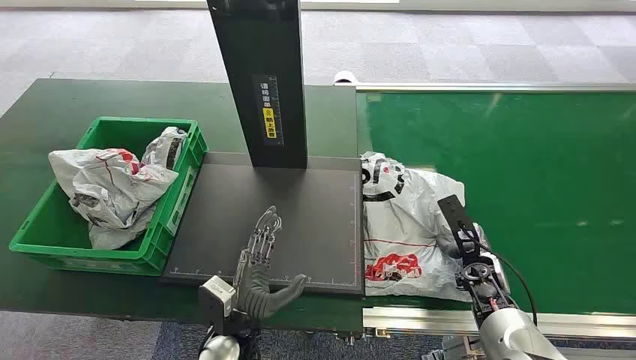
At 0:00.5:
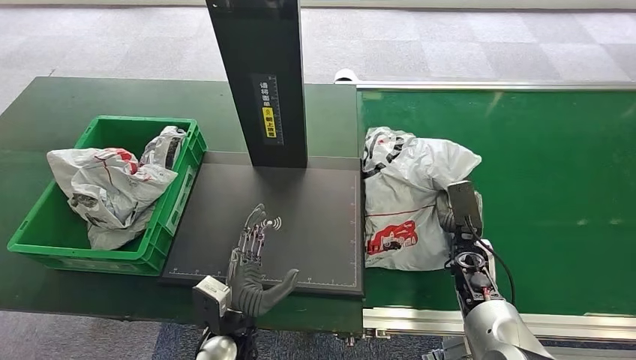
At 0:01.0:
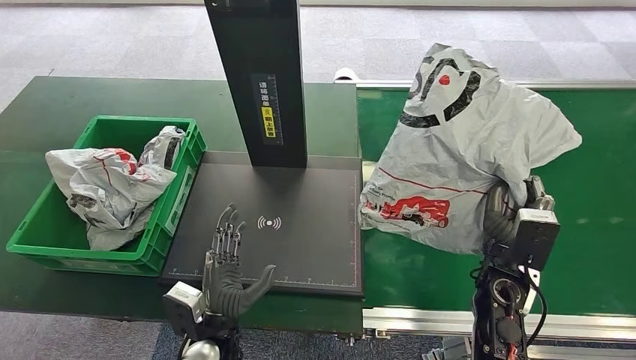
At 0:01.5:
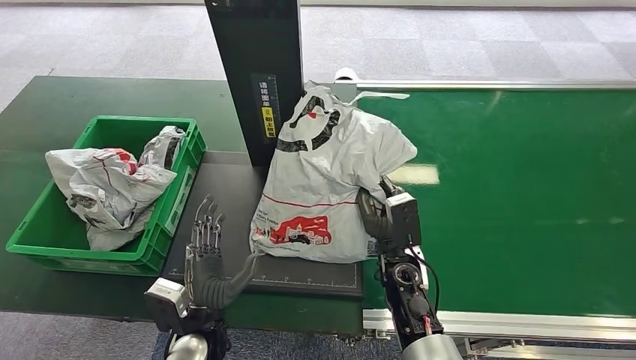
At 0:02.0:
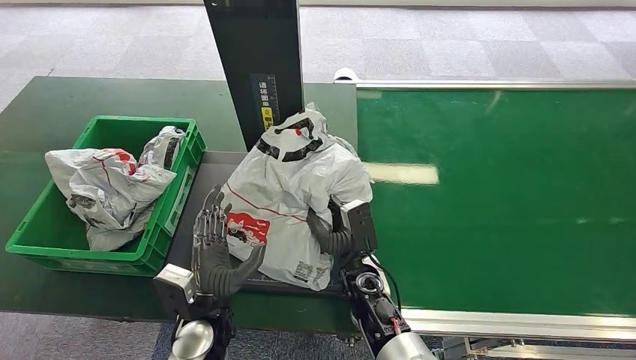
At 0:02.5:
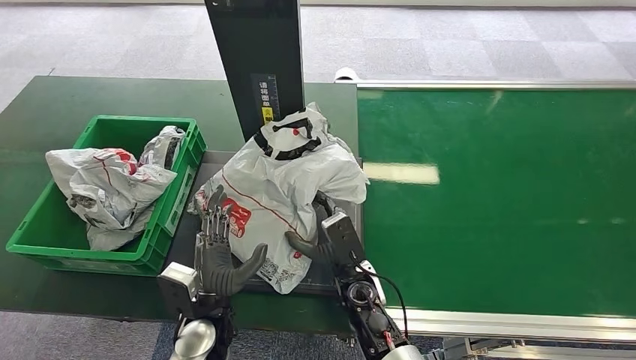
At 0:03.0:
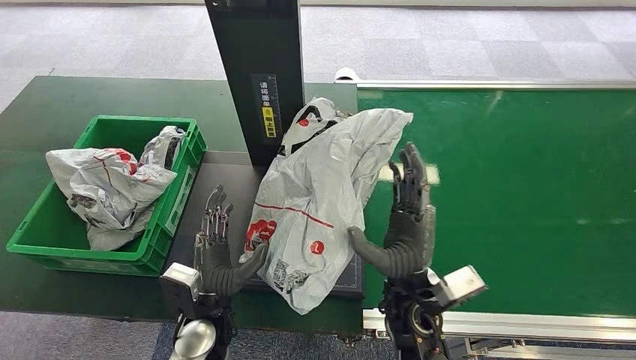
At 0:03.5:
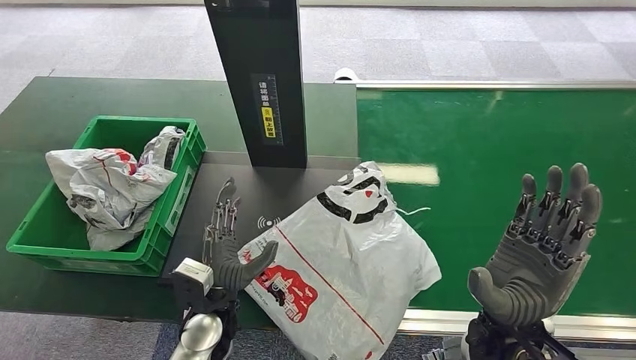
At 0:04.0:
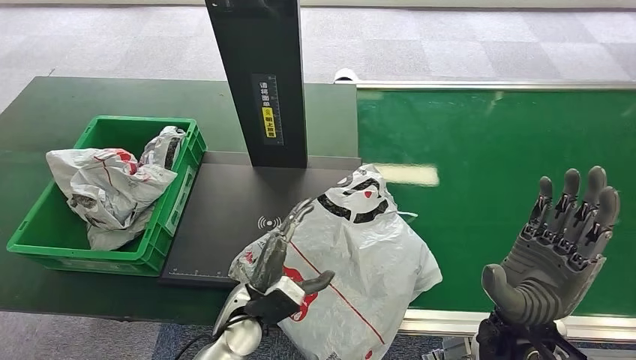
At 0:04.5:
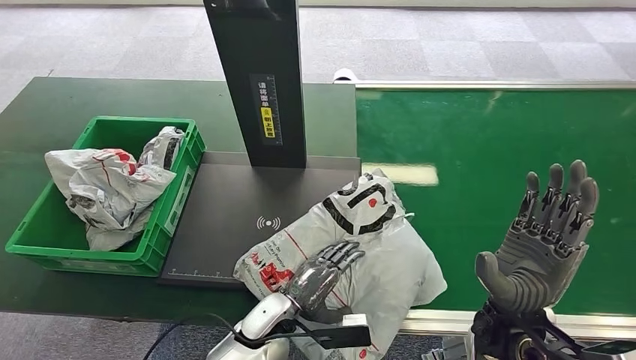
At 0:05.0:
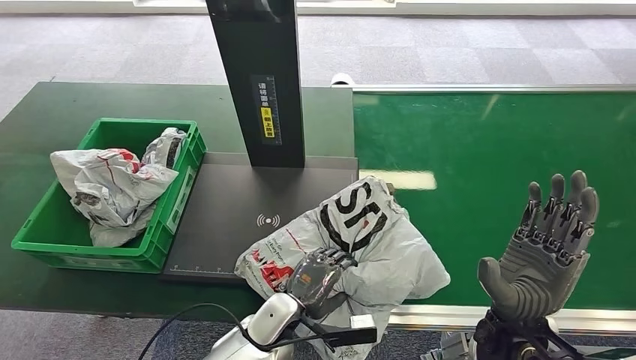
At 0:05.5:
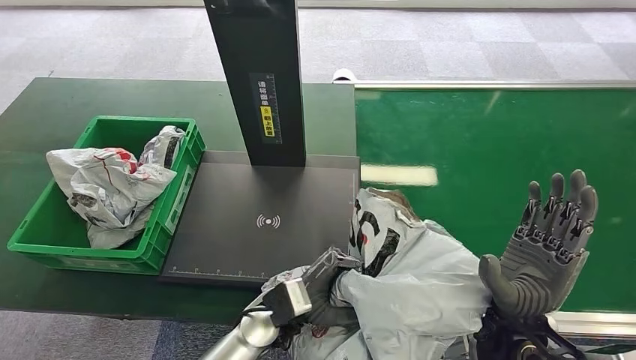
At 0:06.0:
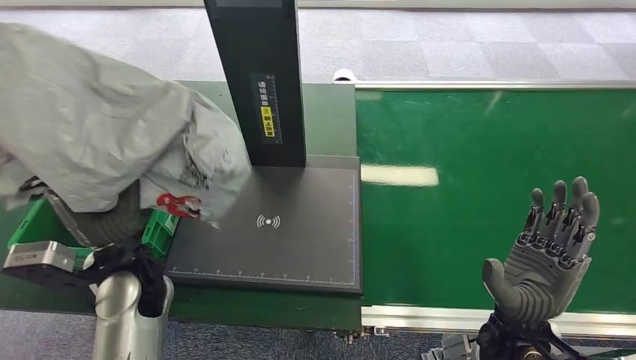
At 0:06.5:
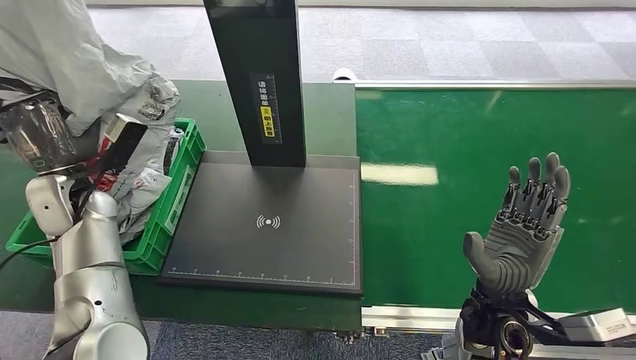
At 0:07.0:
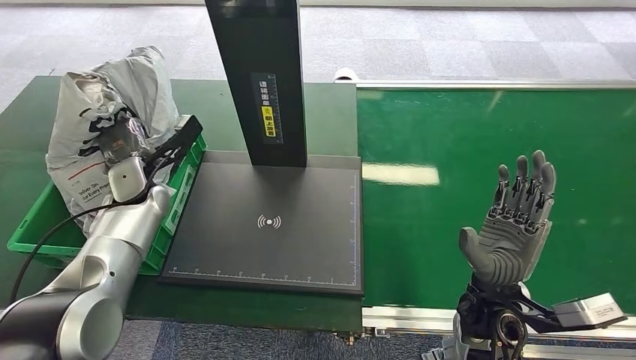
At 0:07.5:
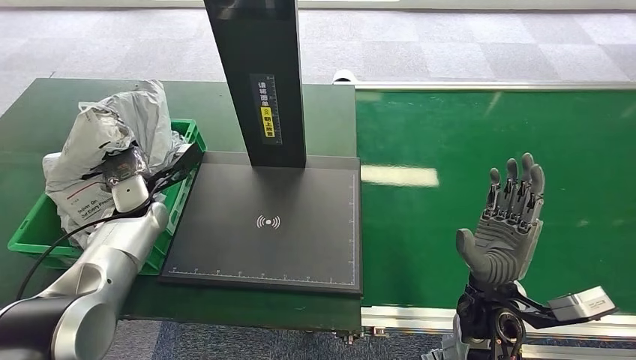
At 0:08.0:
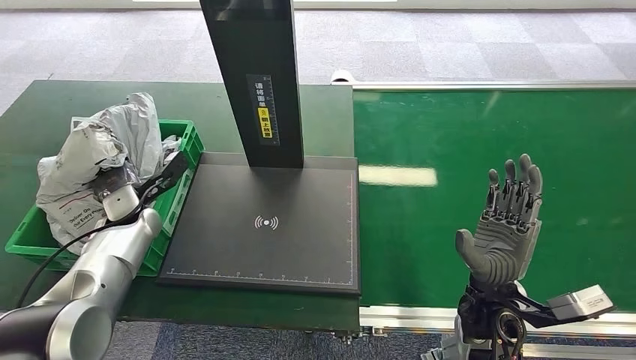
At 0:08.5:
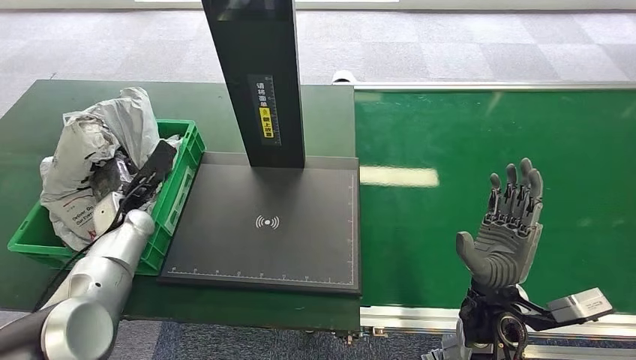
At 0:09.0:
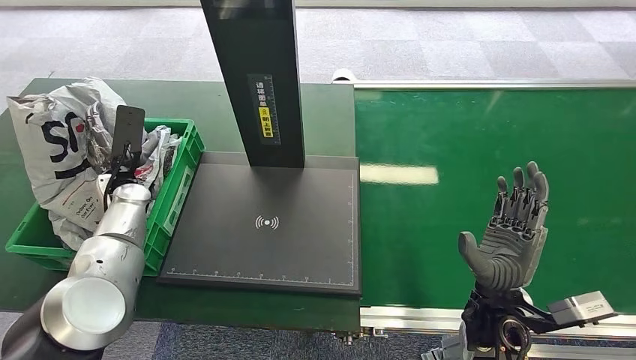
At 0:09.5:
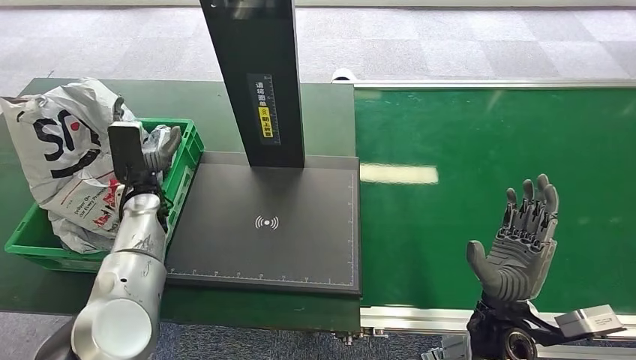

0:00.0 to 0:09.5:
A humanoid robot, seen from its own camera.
Step, 0:00.0 to 0:01.5: Pick up the package from the conveyor belt.
Step, 0:02.0 to 0:03.5: Place the package onto the inbound machine.
Step, 0:04.0 to 0:06.0: Pick up the package from the inbound machine.
Step, 0:06.5 to 0:09.5: Place the package into the parcel locker.
